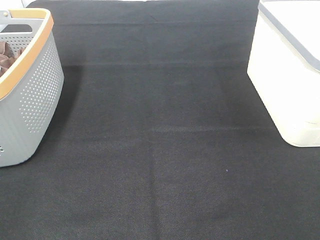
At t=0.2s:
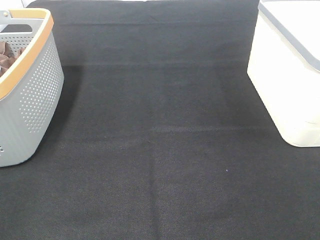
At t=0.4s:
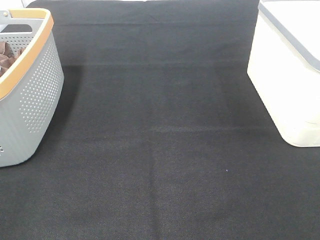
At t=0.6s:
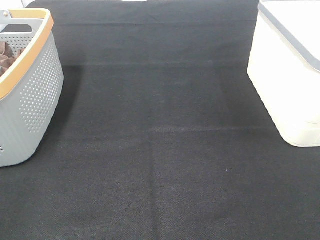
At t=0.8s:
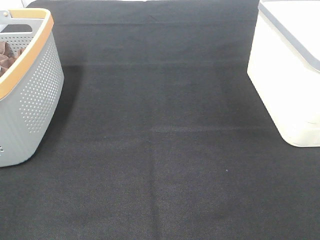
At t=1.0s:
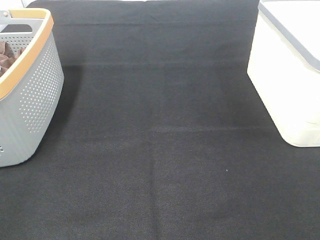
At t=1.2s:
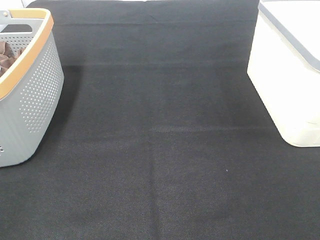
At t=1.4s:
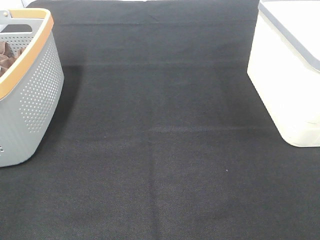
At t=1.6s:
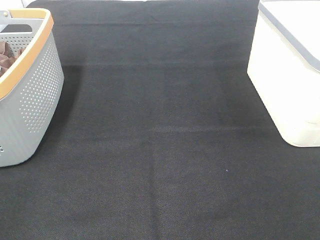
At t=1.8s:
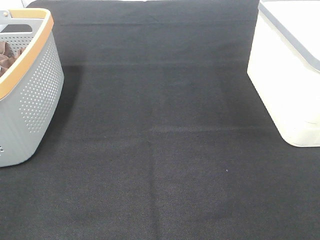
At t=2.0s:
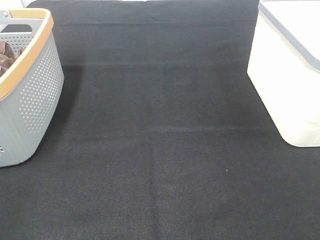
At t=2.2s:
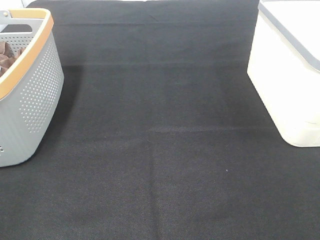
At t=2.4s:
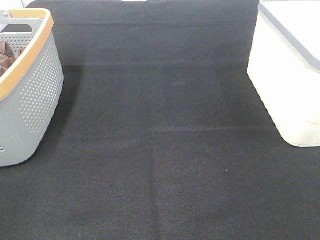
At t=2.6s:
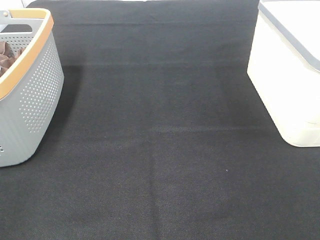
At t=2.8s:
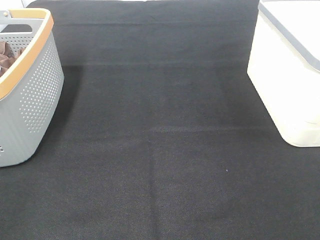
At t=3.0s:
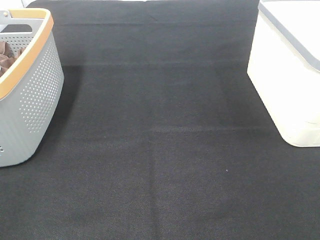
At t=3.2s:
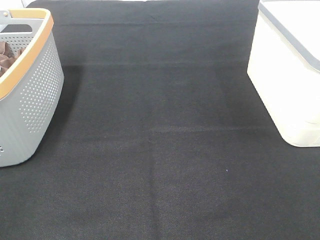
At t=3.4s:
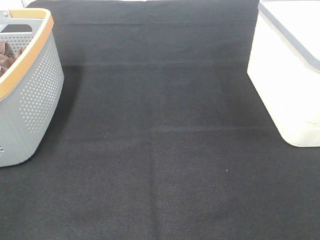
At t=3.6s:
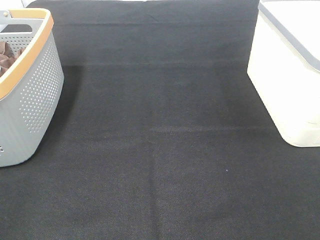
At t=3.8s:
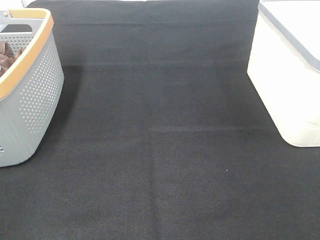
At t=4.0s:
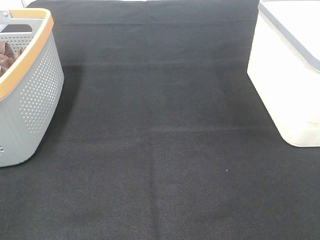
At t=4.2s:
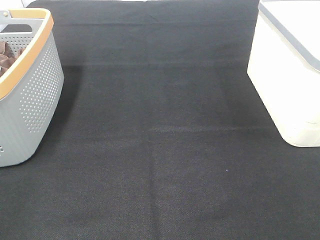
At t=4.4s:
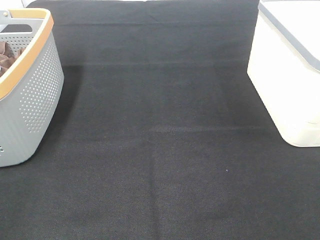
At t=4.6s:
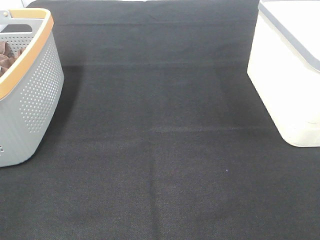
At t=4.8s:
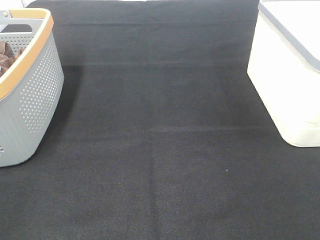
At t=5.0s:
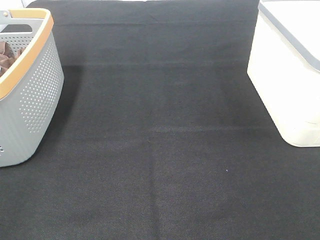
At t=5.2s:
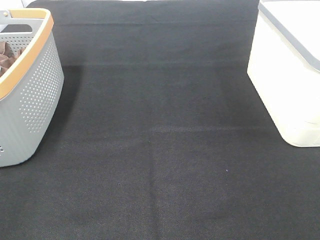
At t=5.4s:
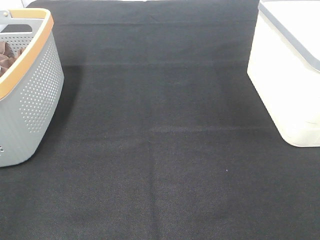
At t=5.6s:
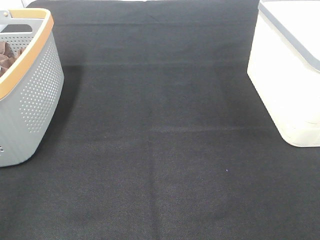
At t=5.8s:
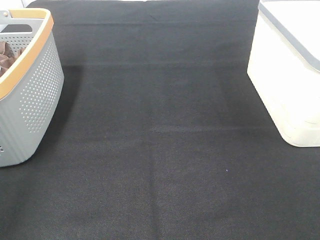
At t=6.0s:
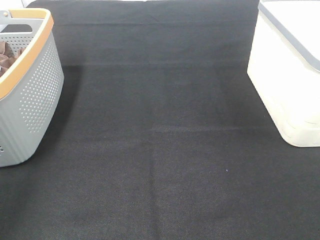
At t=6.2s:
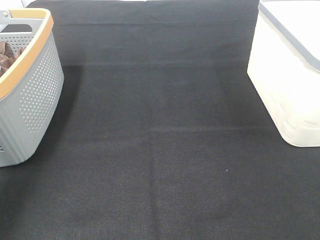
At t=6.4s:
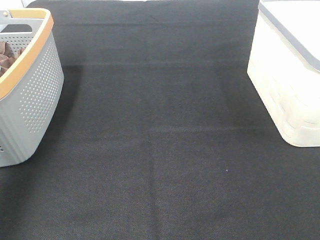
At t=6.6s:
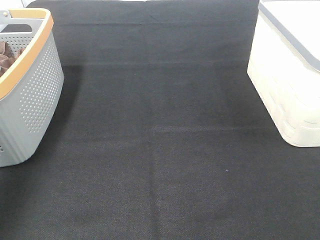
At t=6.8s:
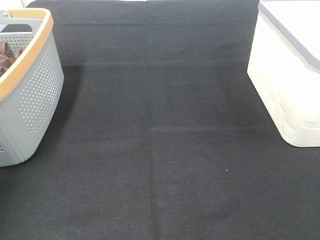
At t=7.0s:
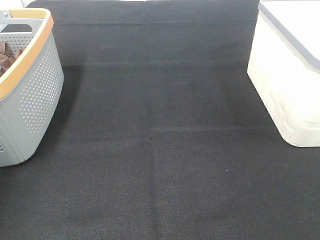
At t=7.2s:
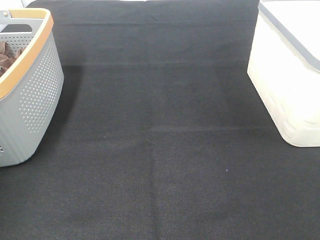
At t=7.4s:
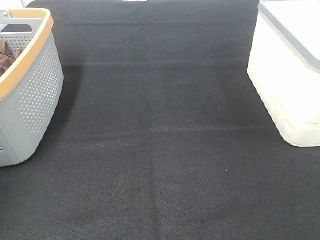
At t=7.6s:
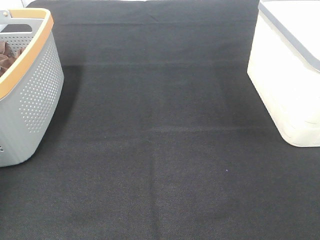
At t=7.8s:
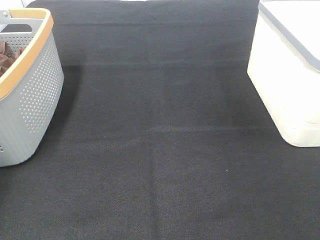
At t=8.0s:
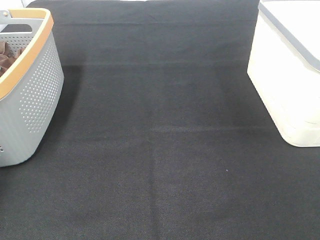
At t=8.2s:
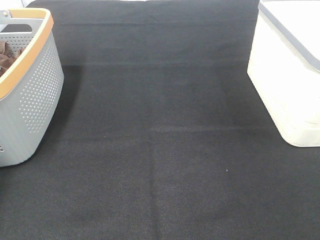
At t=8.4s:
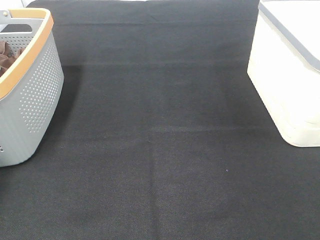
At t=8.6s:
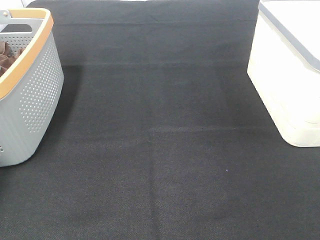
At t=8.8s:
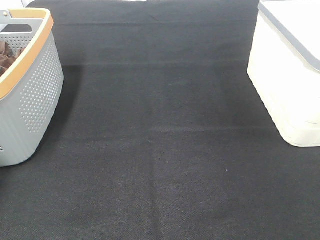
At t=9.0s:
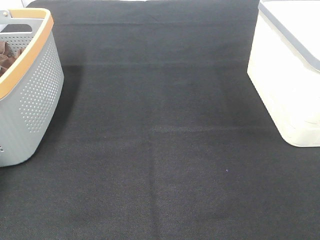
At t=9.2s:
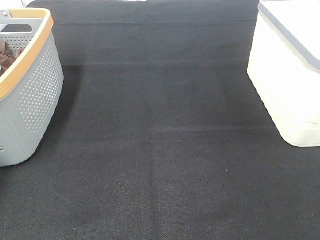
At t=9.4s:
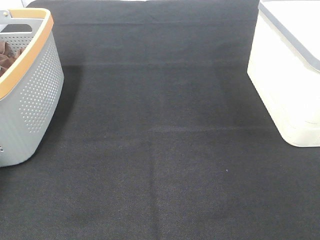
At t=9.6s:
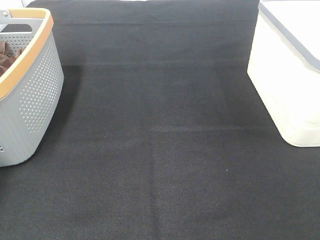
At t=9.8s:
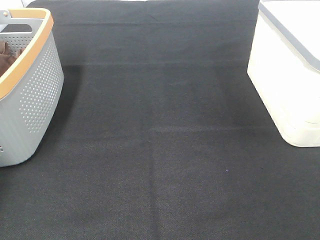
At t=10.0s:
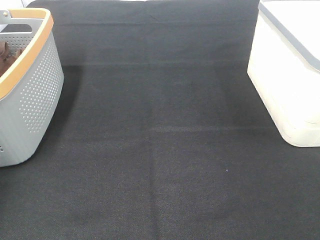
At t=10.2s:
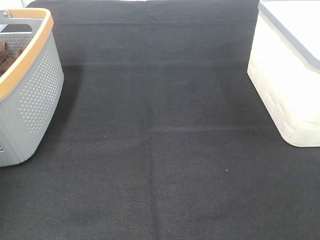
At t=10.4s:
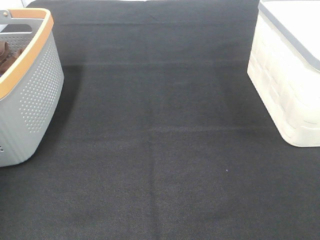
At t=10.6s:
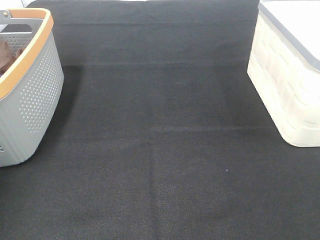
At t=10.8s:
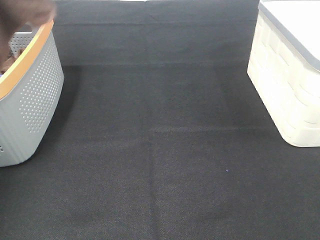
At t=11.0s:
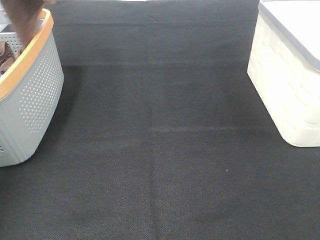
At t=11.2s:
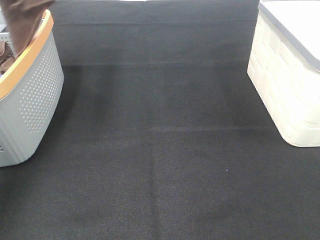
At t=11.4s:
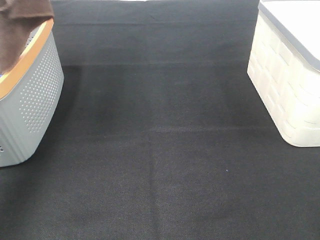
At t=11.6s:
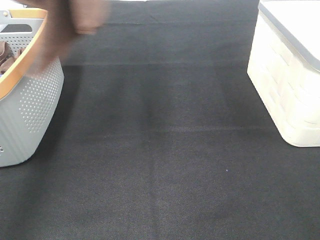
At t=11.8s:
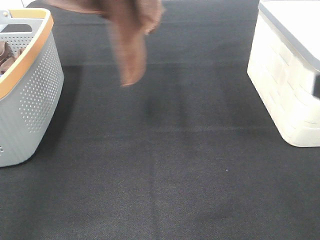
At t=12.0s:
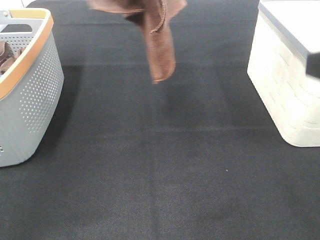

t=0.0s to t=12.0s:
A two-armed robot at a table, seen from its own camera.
Task of the whole recording: Remove the towel and place it.
t=0.0s to t=4.4s: Both grippers stay put.
t=9.0s to t=10.4s: The left gripper travels upward by about 25 cm, and closes its fingers.
t=10.4s to t=12.0s: The right gripper heads forward, covering roughly 10 cm. The left gripper is displaced to the right and backward by about 25 cm.

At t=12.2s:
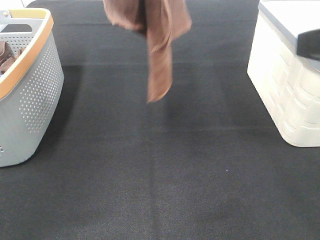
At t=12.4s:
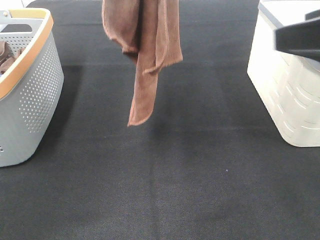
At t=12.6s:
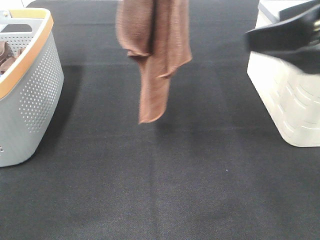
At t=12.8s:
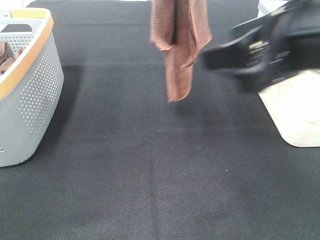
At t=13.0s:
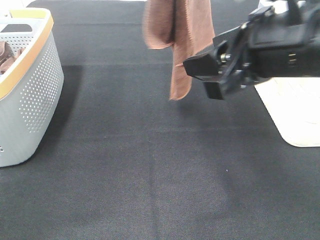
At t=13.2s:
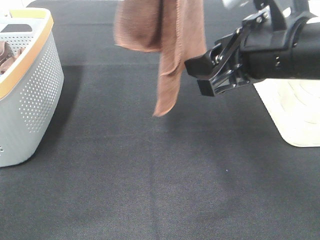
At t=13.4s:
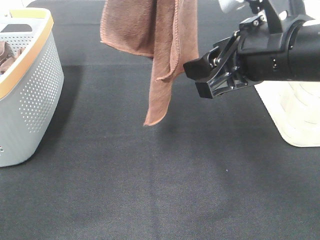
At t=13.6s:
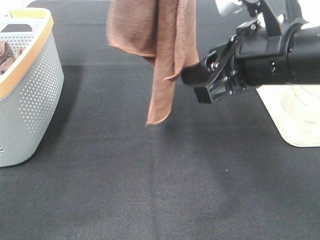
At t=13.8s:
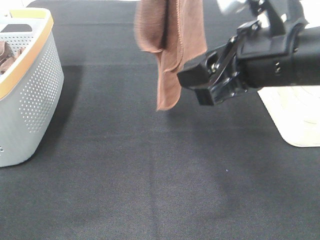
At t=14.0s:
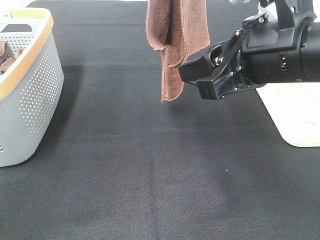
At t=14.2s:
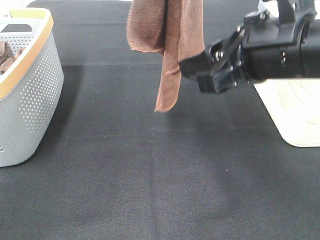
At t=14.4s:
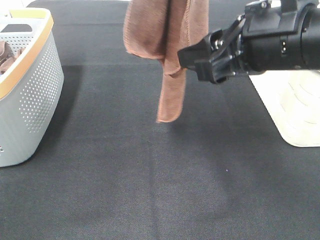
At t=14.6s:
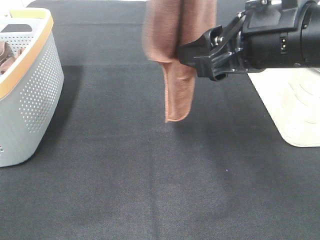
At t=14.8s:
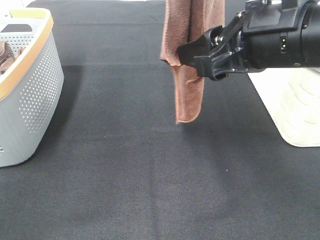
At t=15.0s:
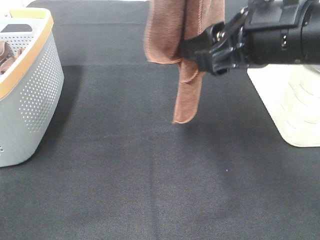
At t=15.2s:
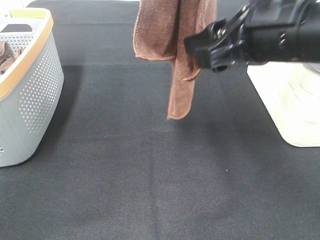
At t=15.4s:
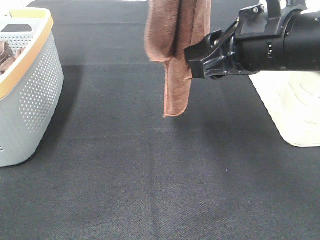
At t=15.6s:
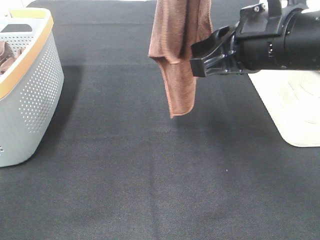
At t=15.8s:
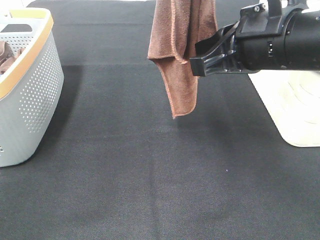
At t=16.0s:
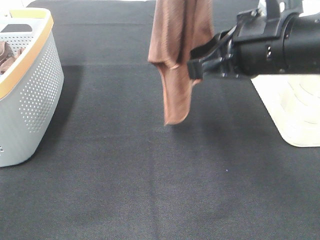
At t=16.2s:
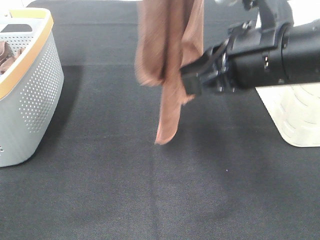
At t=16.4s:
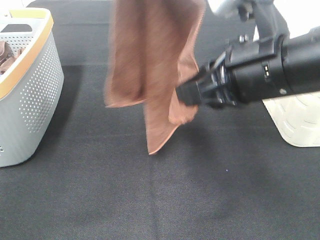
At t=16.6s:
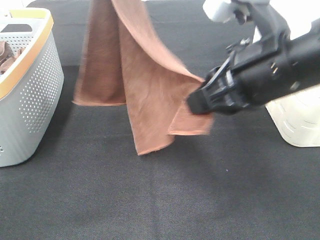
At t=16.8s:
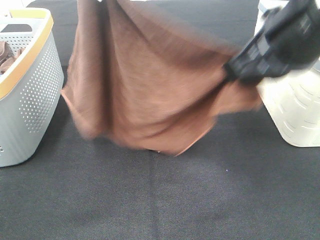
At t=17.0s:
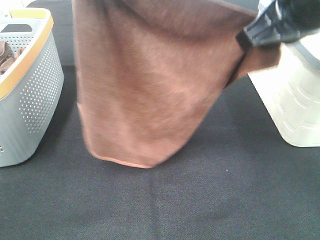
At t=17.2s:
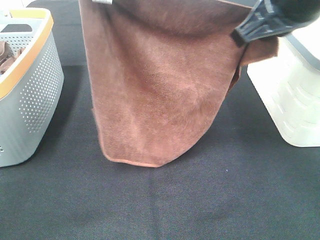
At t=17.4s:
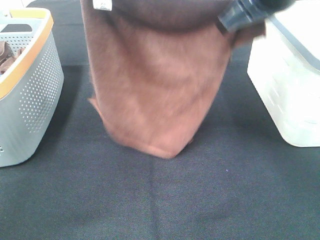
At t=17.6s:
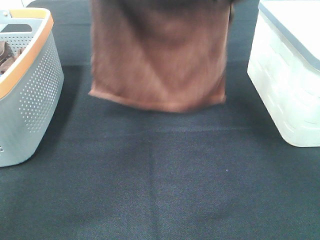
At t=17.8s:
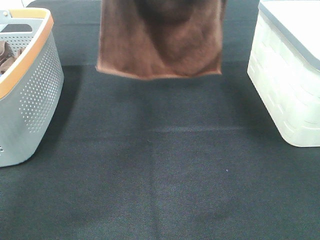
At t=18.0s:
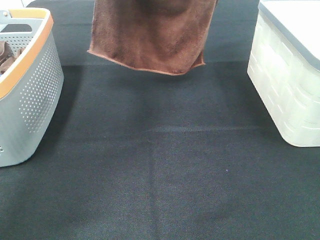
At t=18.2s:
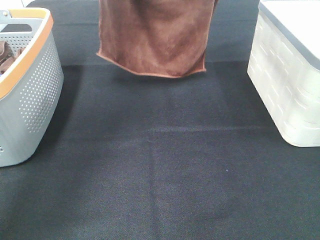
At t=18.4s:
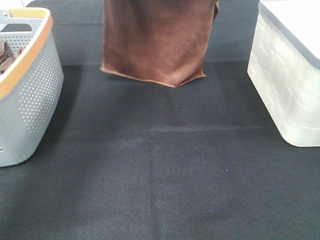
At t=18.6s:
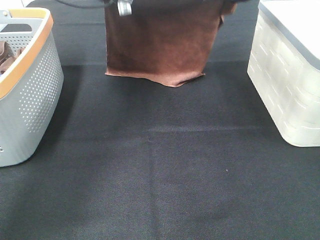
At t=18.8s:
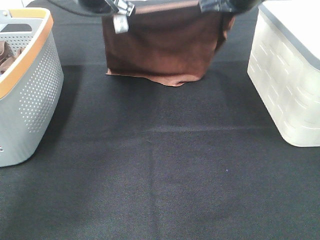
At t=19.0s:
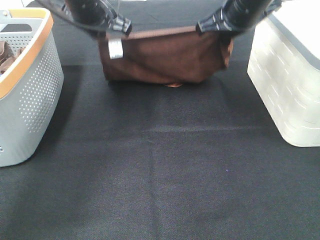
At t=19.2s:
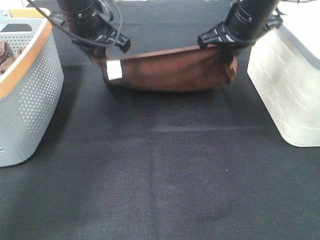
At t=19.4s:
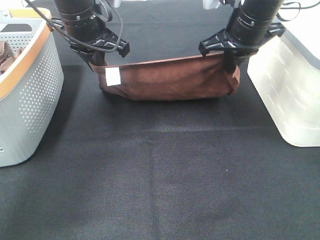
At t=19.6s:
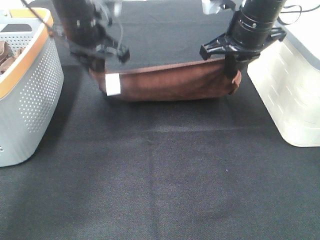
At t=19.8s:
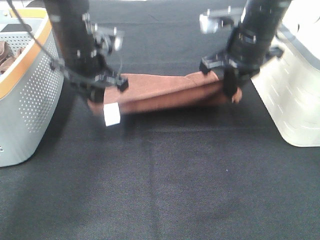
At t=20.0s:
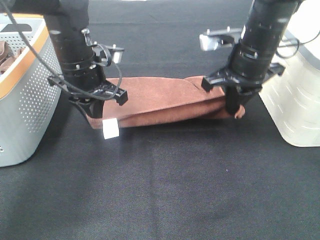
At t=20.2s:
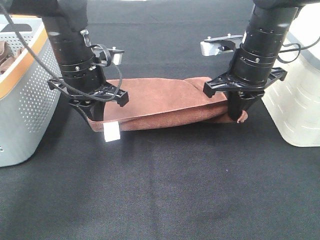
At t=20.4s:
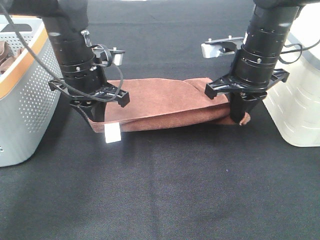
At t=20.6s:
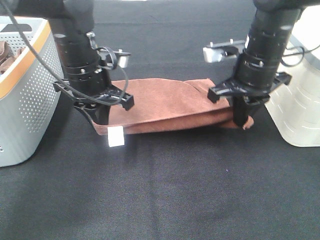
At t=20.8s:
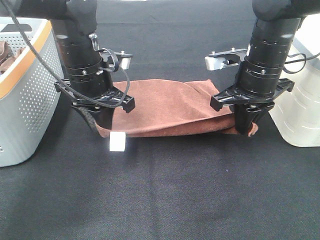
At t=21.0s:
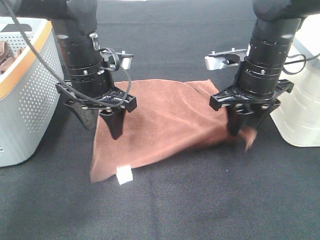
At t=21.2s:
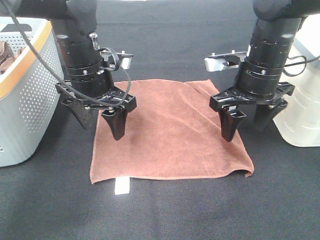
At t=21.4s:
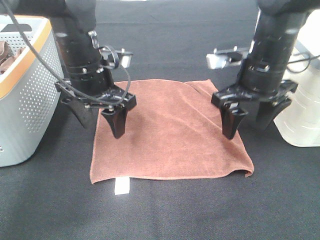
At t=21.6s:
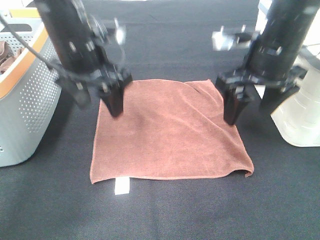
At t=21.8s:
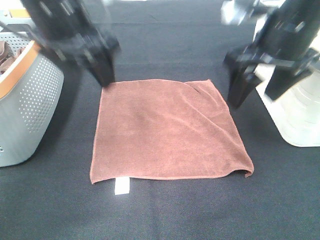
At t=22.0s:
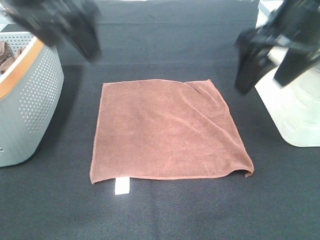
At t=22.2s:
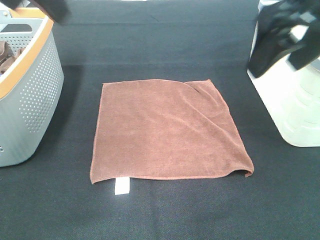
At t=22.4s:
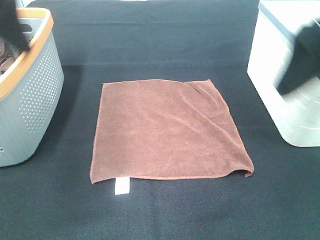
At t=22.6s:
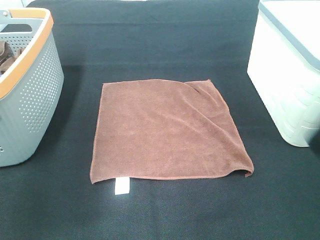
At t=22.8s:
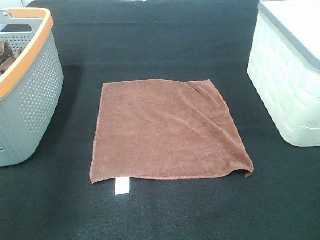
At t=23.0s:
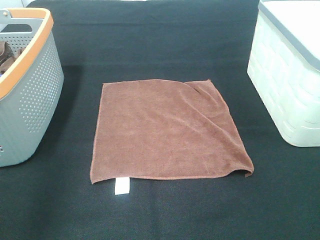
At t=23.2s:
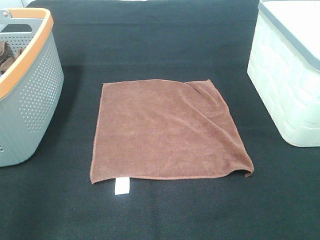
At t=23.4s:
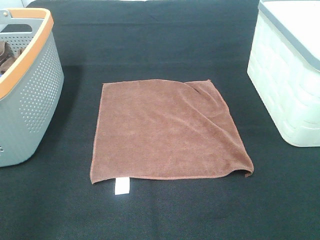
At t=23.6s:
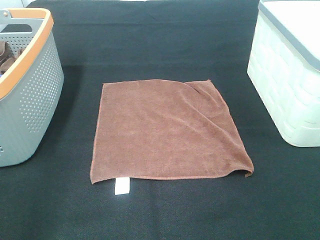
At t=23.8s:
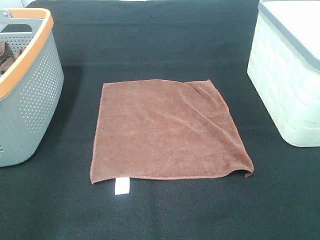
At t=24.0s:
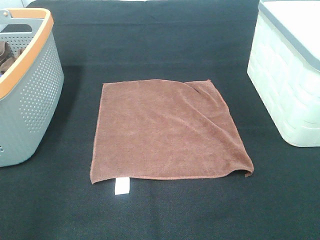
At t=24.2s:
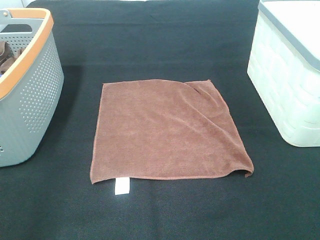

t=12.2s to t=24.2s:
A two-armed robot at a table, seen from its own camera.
Task of the whole recording: Remove the towel and place it.
Step, t=14.0s to t=16.8s: Left hand: spread the brown towel flat on the table.
Step, t=14.0s to t=16.8s: Right hand: spread the brown towel flat on the table.
t=12.2s to t=13.8s: The right gripper heads to the left, forward and downward, covering some 15 cm.
t=13.8s to t=15.2s: There are only small adjustments of the grippers.
t=15.2s to t=16.6s: The right gripper closes up. Meanwhile the left gripper goes approximately 5 cm downward.
t=16.6s to t=18.2s: The left gripper shifts about 20 cm forward and downward. The right gripper moves forward, some 25 cm.
t=18.2s to t=19.8s: Both grippers move downward and backward, approximately 15 cm.
t=19.8s to t=21.2s: The left gripper opens its fingers. The right gripper opens up.
t=21.2s to t=22.6s: The left gripper is displaced backward, upward and to the left by about 25 cm. The right gripper travels backward and upward by about 25 cm.
t=22.6s to t=24.2s: The right gripper moves backward, some 10 cm. The left gripper goes some 15 cm backward and downward.
